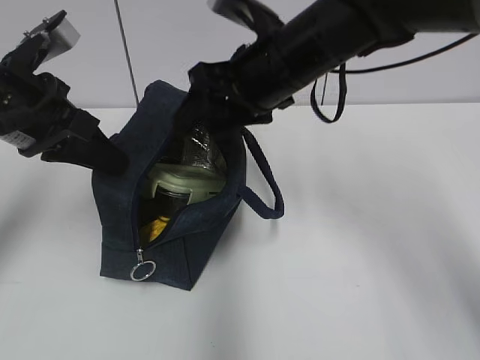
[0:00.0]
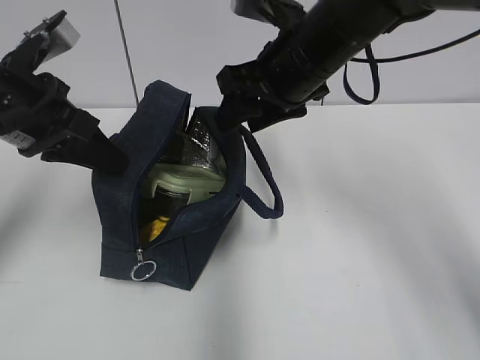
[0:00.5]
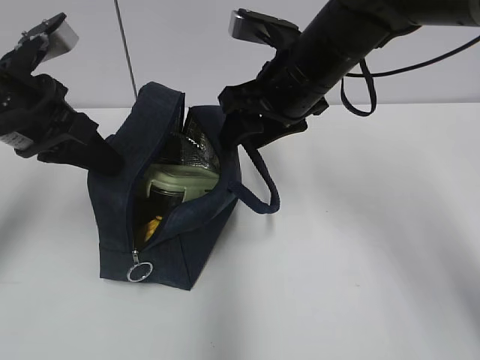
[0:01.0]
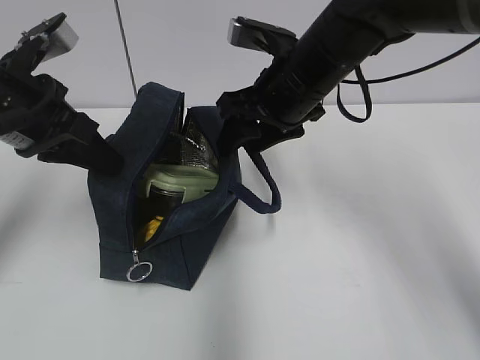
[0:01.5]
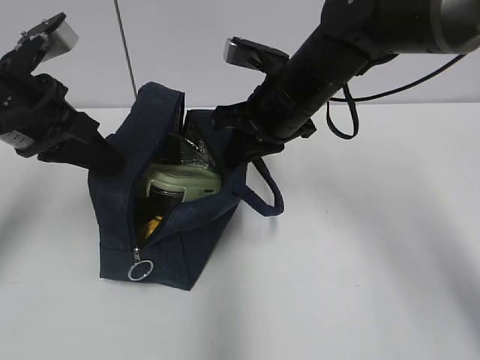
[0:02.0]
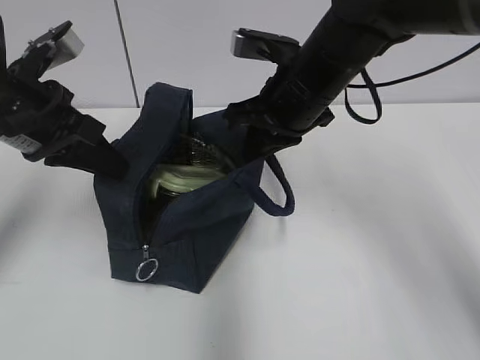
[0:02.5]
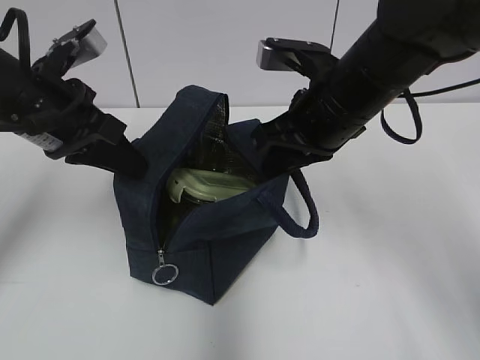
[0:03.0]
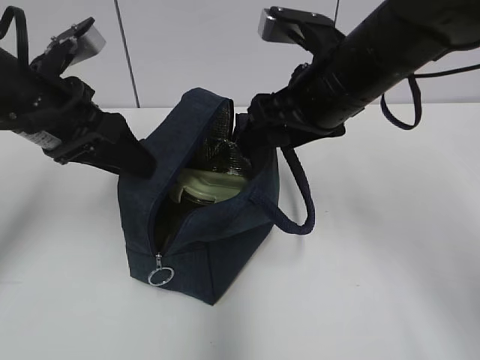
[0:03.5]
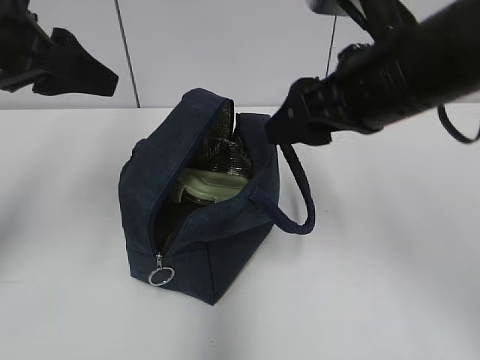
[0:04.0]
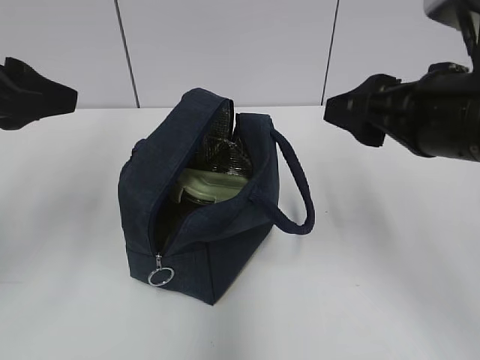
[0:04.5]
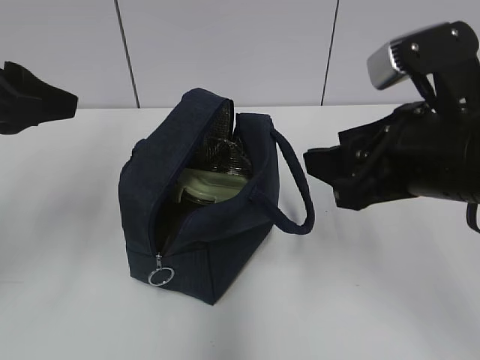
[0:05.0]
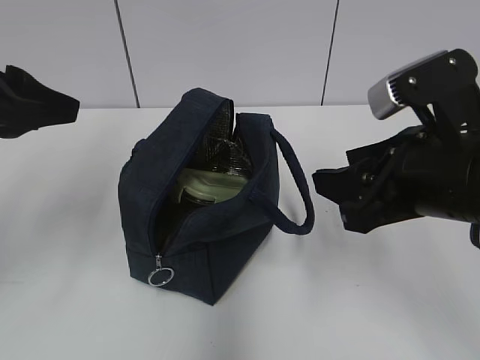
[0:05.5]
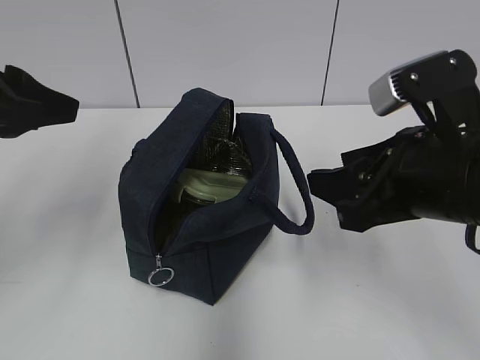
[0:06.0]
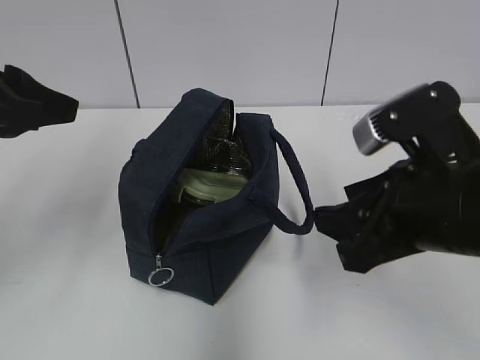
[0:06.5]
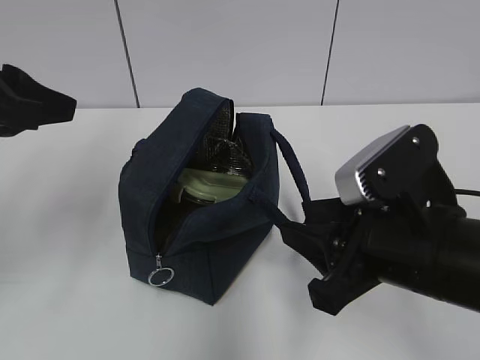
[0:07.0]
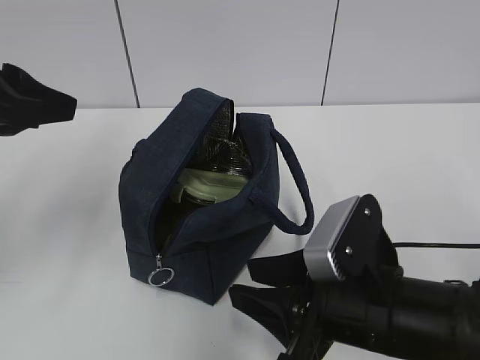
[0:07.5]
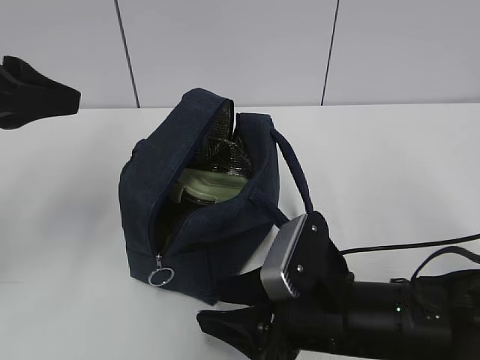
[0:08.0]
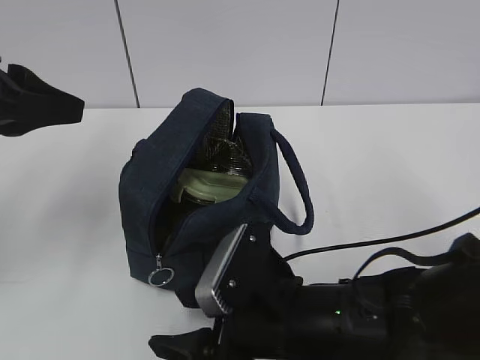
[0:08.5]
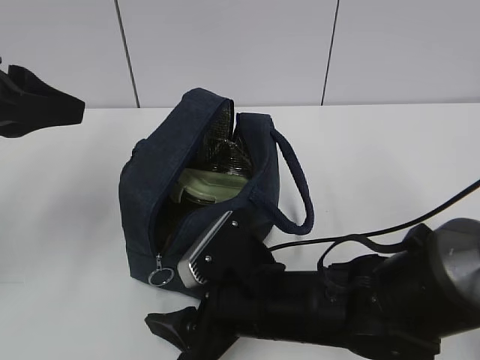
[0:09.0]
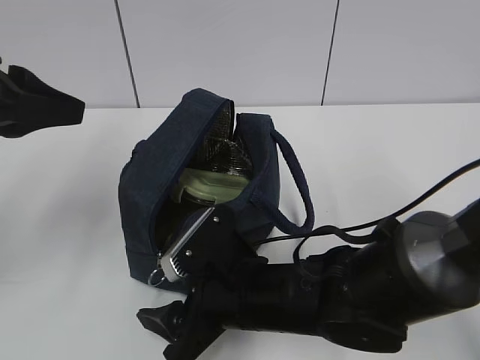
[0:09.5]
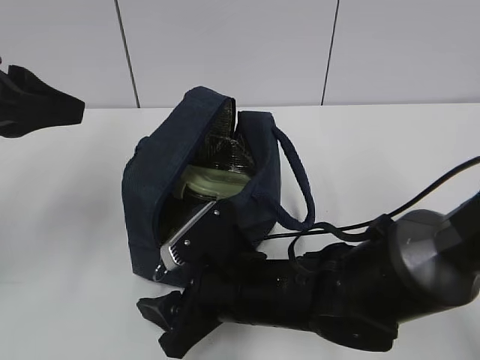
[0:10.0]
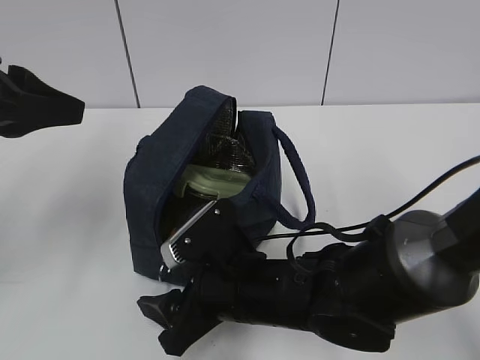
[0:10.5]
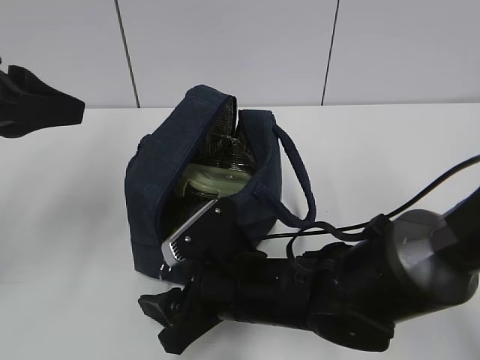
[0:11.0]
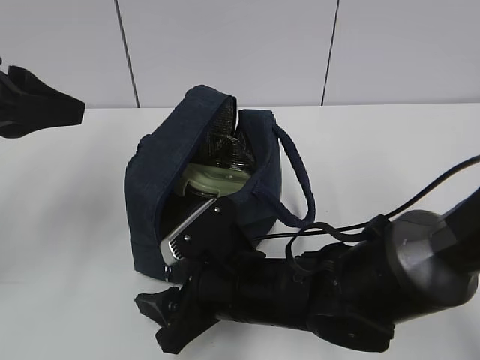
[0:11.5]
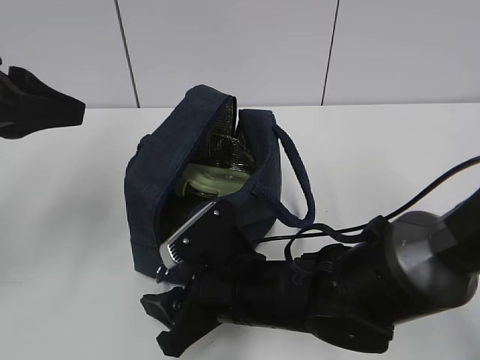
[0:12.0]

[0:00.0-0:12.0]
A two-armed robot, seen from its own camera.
Step, 0:00.0 to 0:01.5: Grab the lunch bag with your right hand.
Step, 0:02.0 to 0:03.0: Move the lunch bag to the right.
0:00.0 to 0:02.0: The right gripper is displaced downward by approximately 5 cm, and closes its fingers.
0:02.0 to 0:04.0: The right gripper heads backward, upward and to the right, covering some 15 cm, and opens, while the left gripper moves upward, approximately 5 cm, and opens.
0:04.0 to 0:06.0: The right gripper heads backward, covering roughly 5 cm. Meanwhile the left gripper moves roughly 5 cm.
0:06.0 to 0:08.0: The right gripper moves downward and to the left, some 15 cm.
0:08.0 to 0:10.0: The right gripper moves to the left, roughly 5 cm, and opens.
0:10.0 to 0:12.0: The two grippers keep their place.

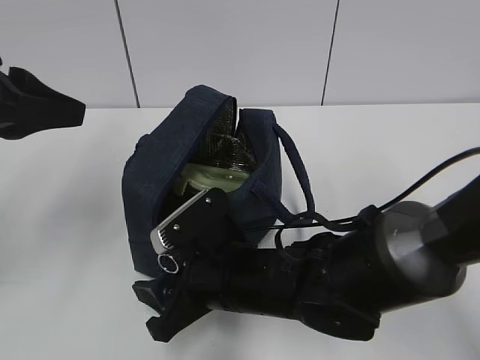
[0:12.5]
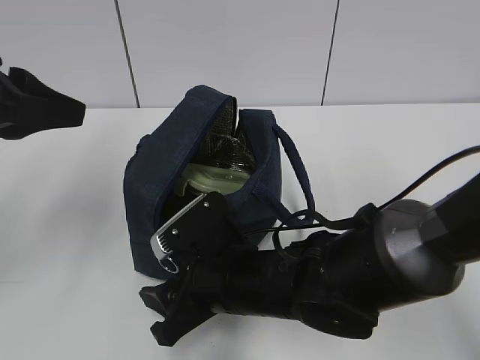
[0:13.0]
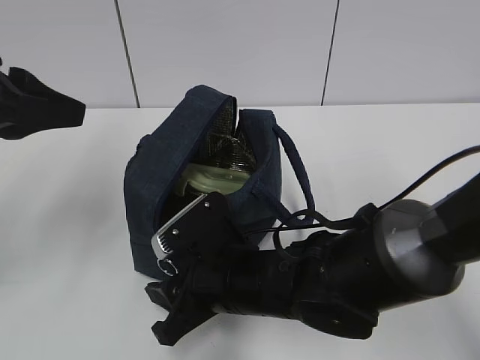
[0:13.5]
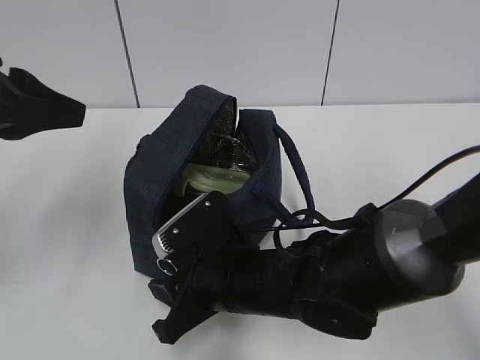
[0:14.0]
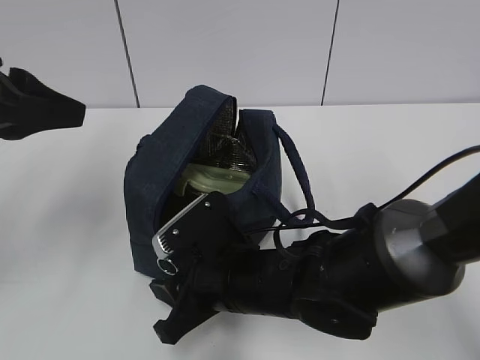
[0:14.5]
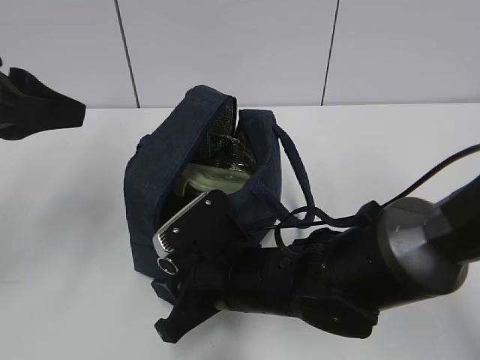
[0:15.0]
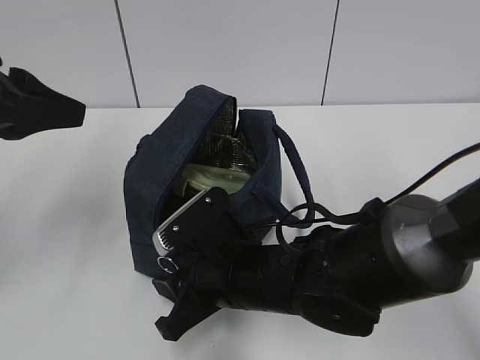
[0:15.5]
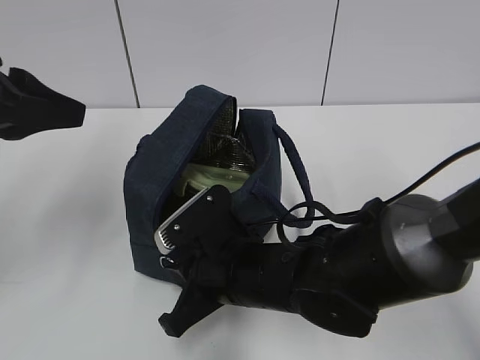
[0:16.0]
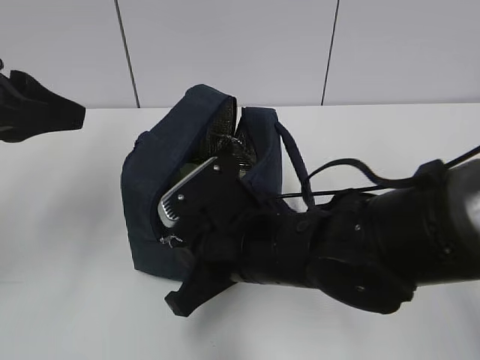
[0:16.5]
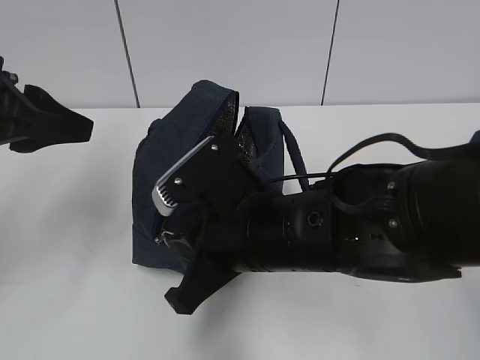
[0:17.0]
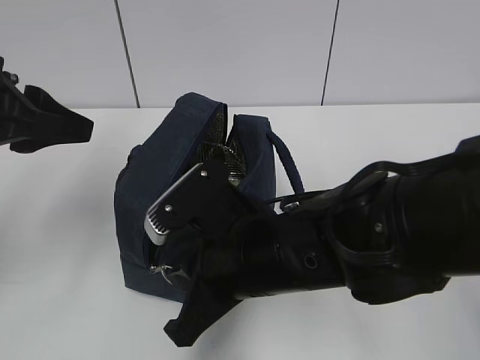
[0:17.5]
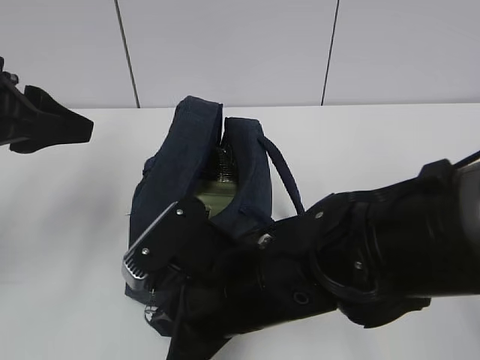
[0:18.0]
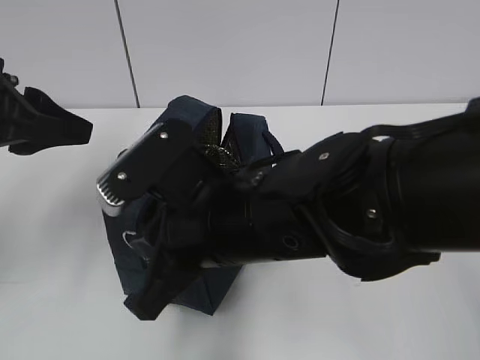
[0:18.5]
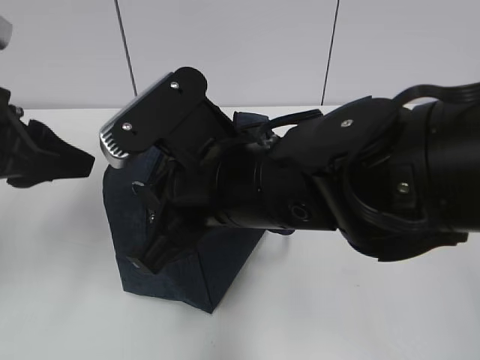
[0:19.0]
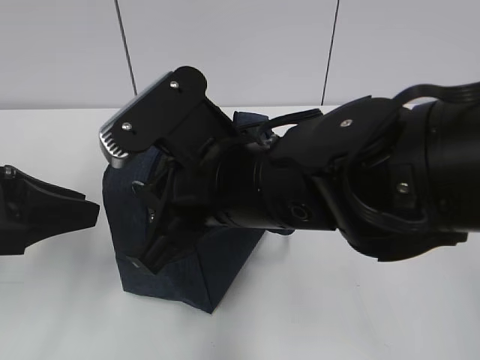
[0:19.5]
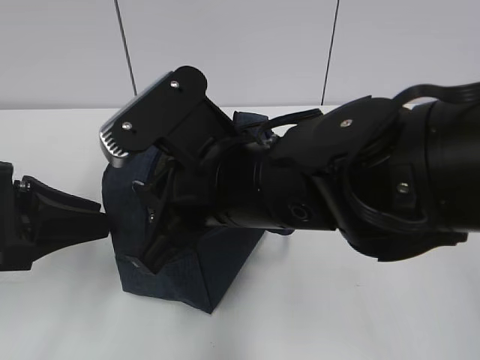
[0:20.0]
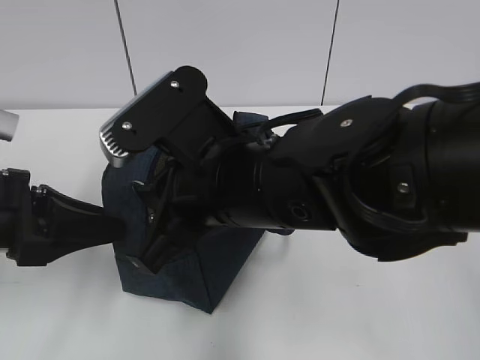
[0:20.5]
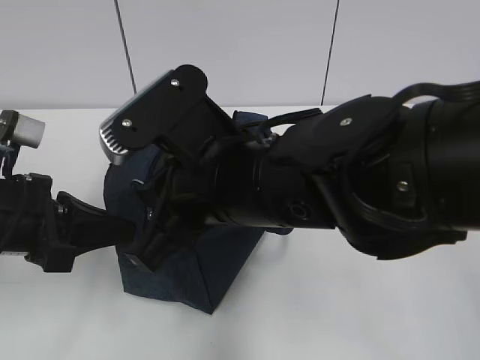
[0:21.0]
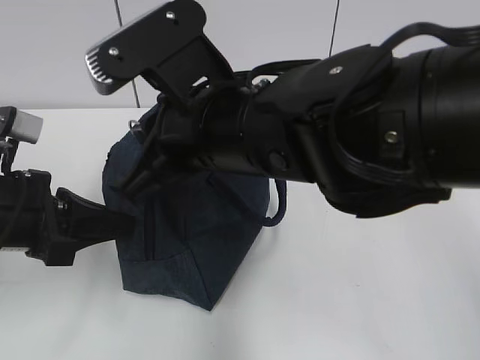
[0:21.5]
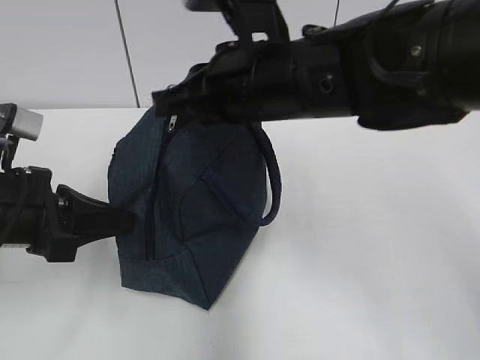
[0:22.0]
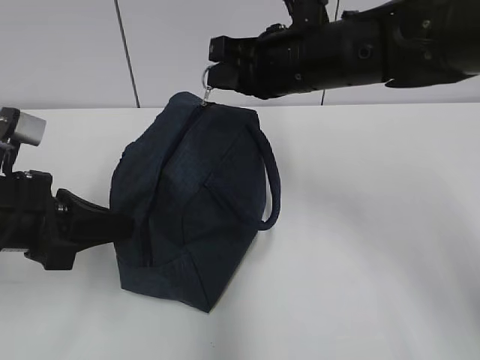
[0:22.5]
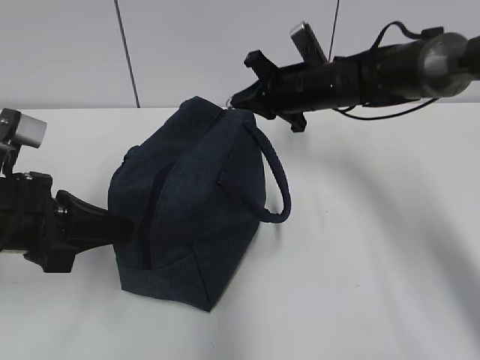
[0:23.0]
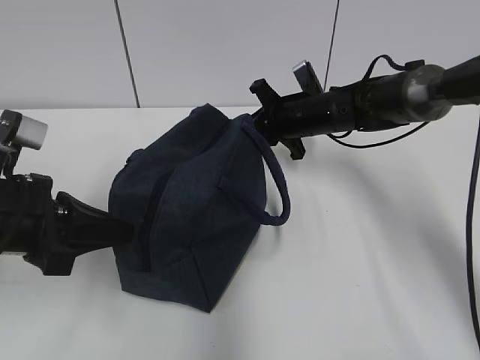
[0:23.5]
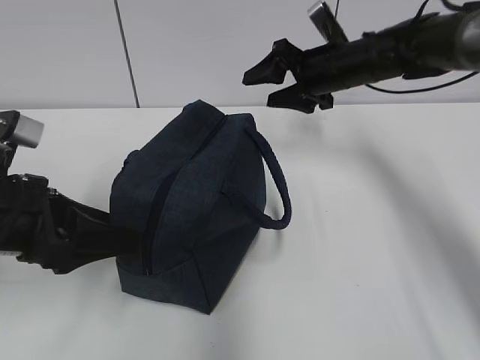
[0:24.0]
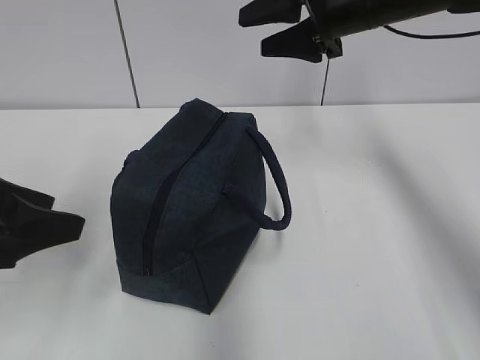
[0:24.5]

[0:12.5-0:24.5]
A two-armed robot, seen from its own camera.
Step, 0:12.5 to 0:20.5: Grab the lunch bag with your left hand.
Step, 0:21.5 to 0:23.5: Pull the zipper with your right hand.
0:12.5 to 0:14.5: Both grippers stay put.
0:14.5 to 0:16.5: The right gripper heads upward, covering about 5 cm, and closes up.
0:16.5 to 0:18.5: The right gripper goes roughly 5 cm upward.
0:18.5 to 0:20.5: The left gripper goes roughly 10 cm downward.
0:20.5 to 0:22.5: The left gripper closes up, while the right gripper goes some 15 cm forward and to the right.
0:22.5 to 0:24.5: The left gripper ends up approximately 5 cm from where it was, and opens, while the right gripper travels to the right and forward by roughly 10 cm, goes downward and returns, about 15 cm each way, and opens up.

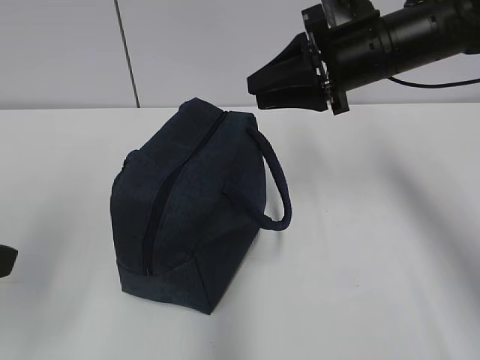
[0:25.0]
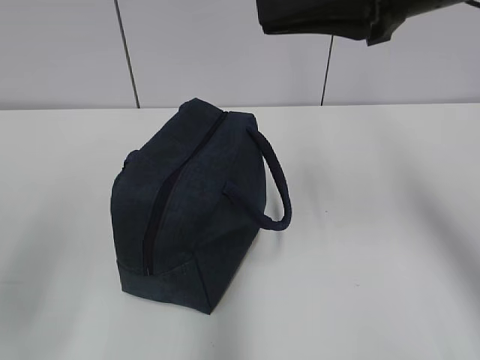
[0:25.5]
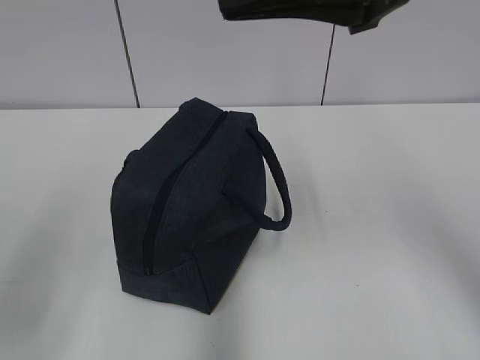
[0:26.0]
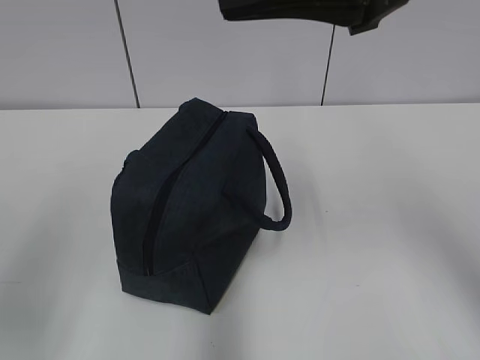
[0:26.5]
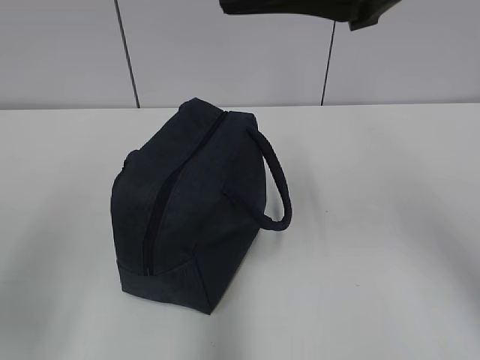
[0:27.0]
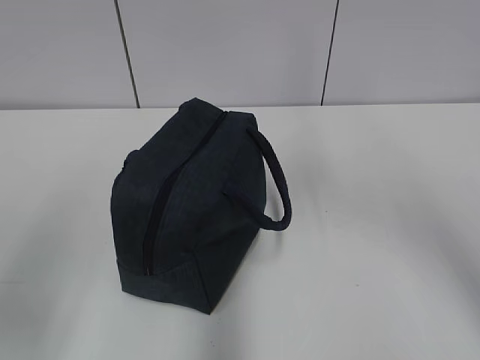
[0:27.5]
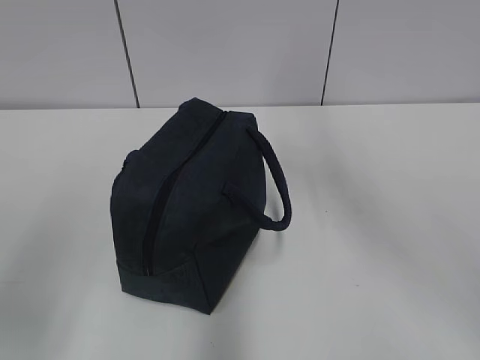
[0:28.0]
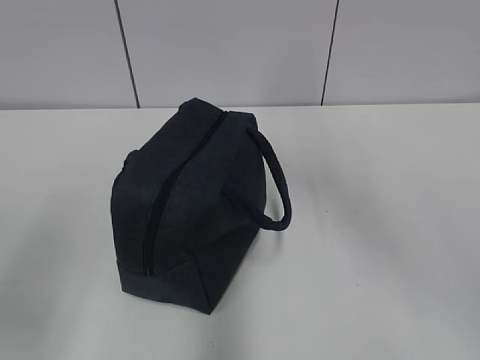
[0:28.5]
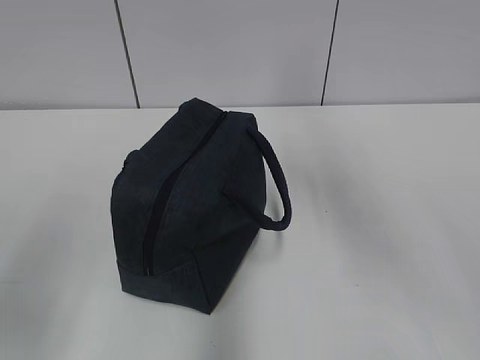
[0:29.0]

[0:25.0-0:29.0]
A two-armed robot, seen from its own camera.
0:25.0 to 0:27.0: The right gripper travels backward and upward by roughly 20 cm, and closes; the left gripper closes its fingers.
